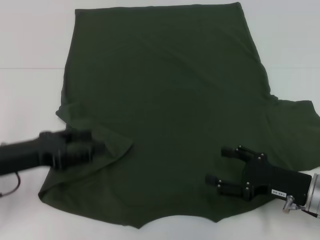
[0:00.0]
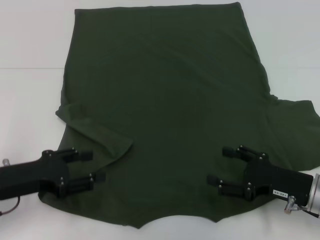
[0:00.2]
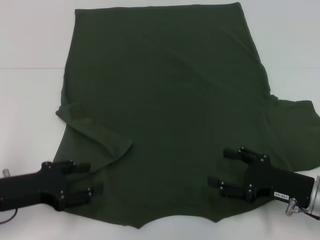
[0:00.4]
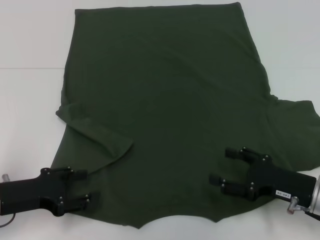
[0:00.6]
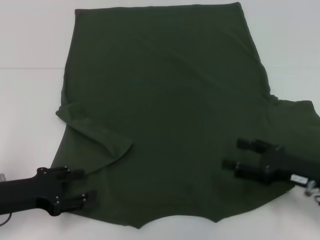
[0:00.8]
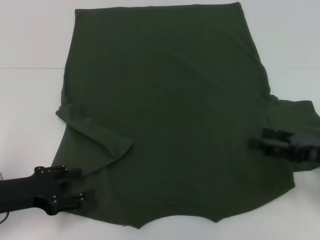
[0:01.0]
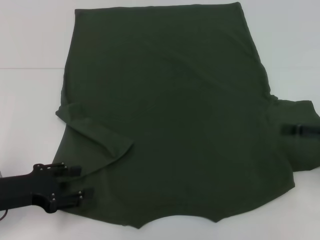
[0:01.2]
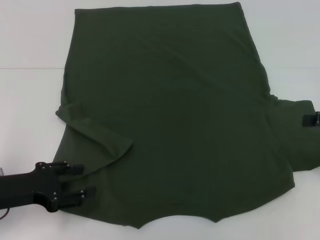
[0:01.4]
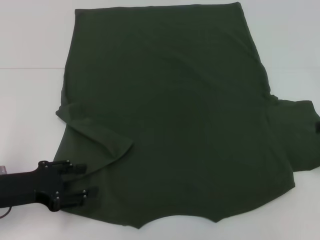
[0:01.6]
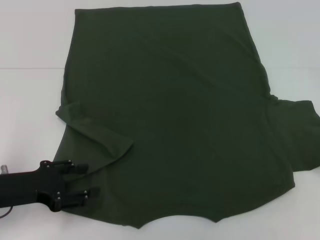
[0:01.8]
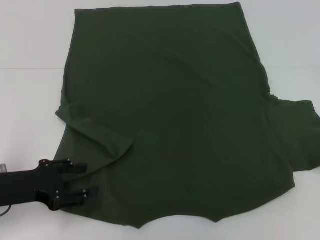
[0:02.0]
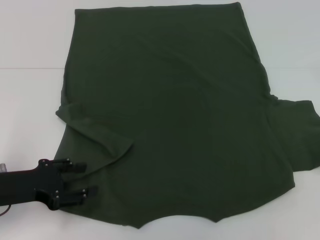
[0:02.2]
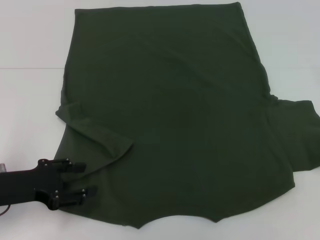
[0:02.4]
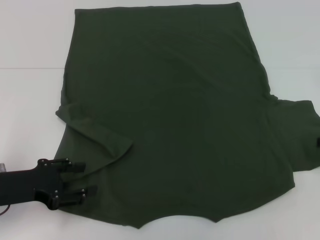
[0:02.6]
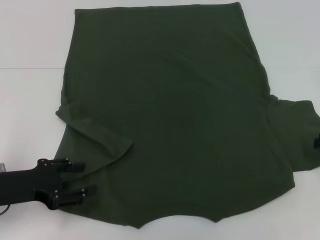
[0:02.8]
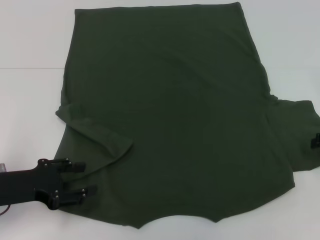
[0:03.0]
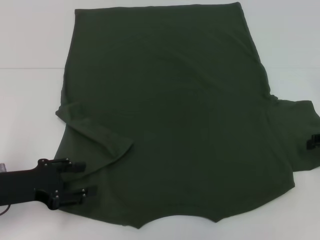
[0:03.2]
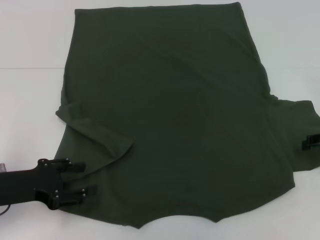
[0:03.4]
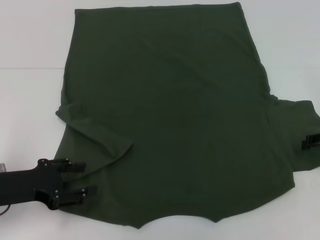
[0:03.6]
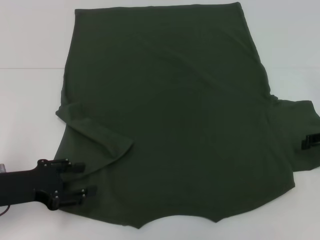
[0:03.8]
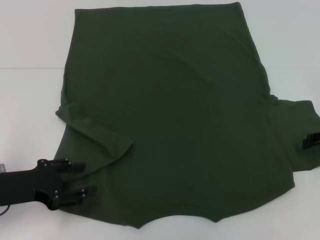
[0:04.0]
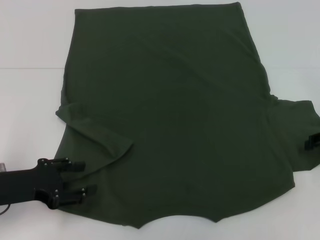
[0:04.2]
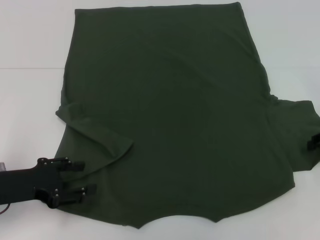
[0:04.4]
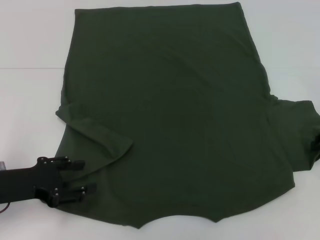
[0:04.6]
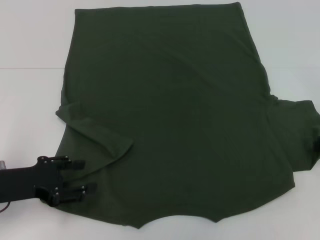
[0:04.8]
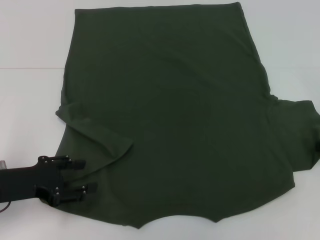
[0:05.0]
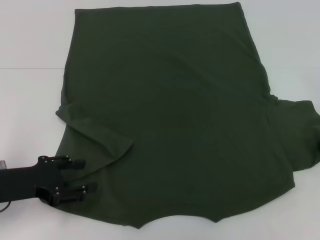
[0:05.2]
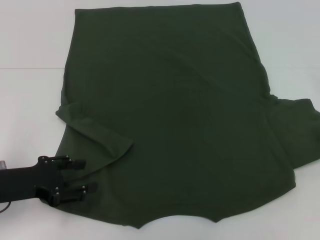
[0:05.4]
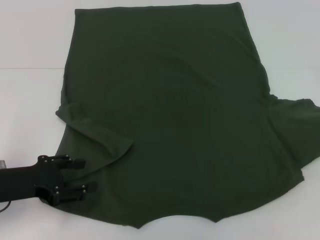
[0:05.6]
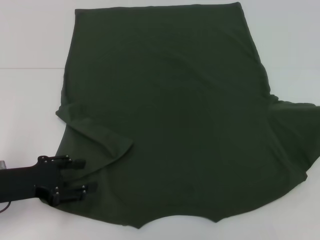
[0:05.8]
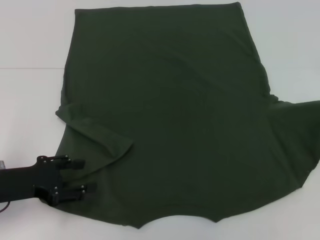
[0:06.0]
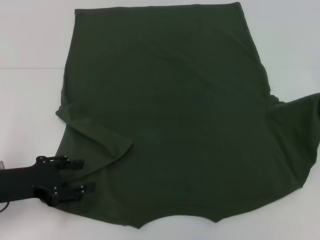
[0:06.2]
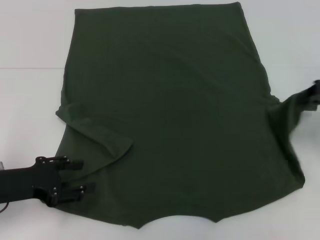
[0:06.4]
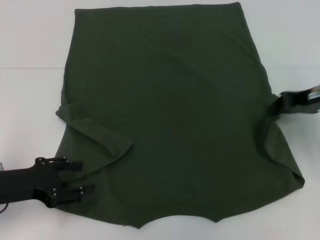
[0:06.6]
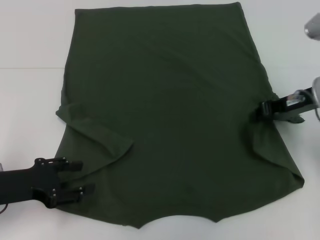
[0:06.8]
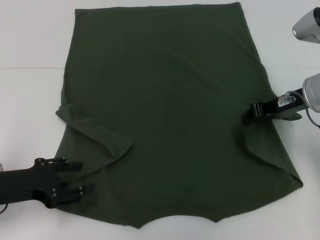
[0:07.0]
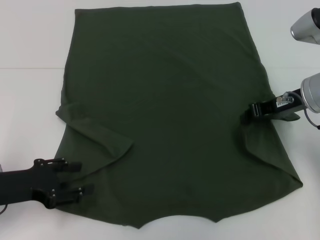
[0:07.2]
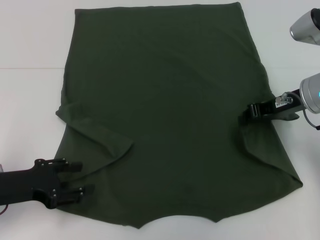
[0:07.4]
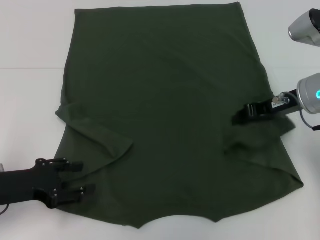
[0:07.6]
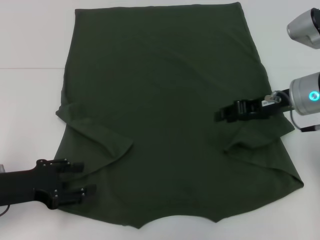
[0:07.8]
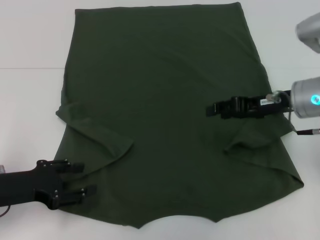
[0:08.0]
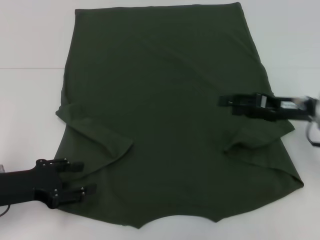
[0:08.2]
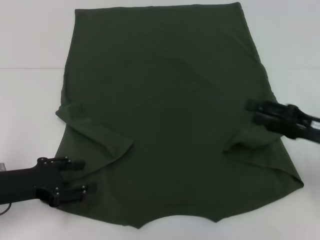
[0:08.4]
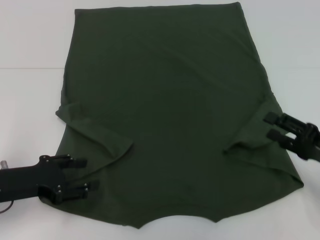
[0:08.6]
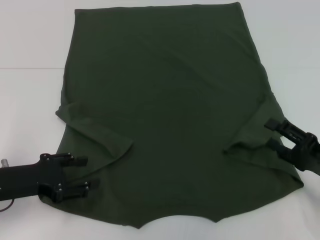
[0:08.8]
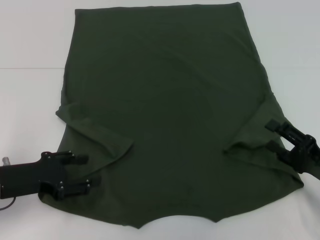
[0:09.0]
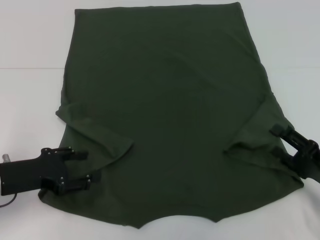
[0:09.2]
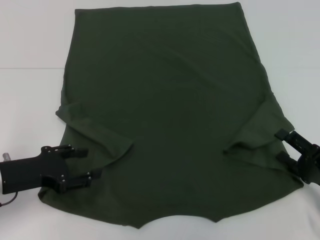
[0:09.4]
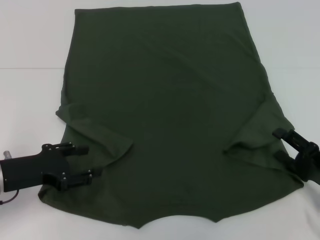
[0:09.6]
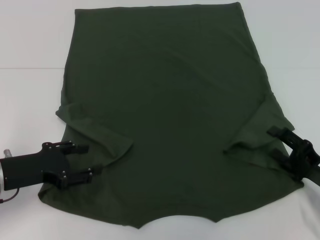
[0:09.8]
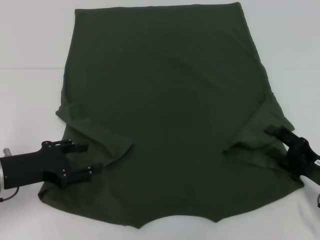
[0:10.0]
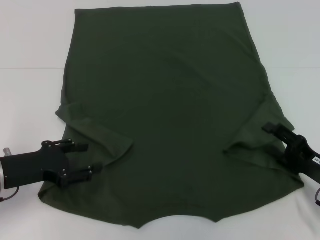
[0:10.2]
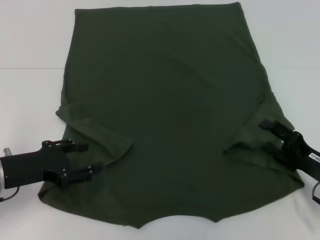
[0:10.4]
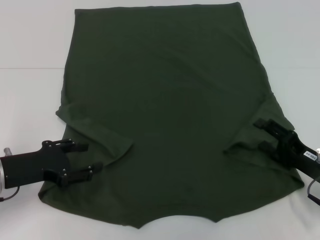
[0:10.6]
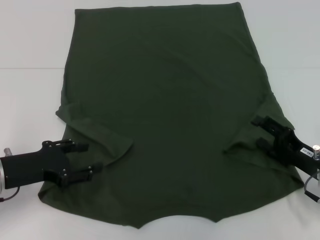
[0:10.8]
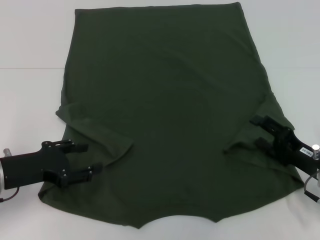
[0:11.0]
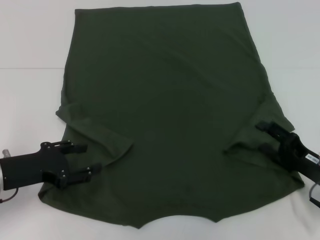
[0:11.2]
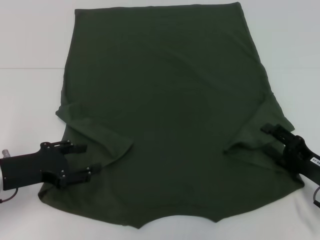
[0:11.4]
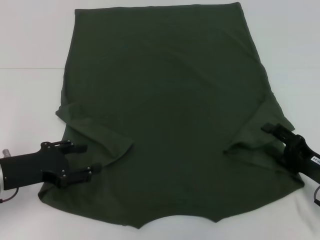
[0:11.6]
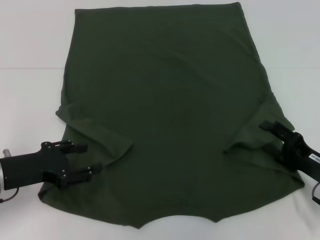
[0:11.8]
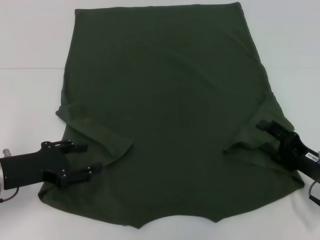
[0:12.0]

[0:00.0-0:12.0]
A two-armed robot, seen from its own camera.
0:00.0 to 0:01.6: The right gripper travels upward and to the right by approximately 20 cm.
0:04.4 to 0:06.0: The right gripper shifts by approximately 5 cm, and closes its fingers.
0:06.0 to 0:07.6: The right gripper shifts approximately 15 cm to the left.
0:07.6 to 0:09.0: The right gripper goes some 20 cm backward, downward and to the right, and opens.
0:09.0 to 0:12.0: The grippers make only small movements.

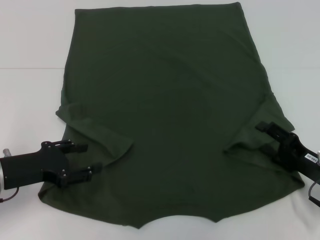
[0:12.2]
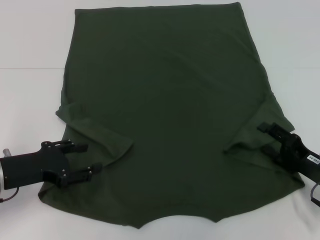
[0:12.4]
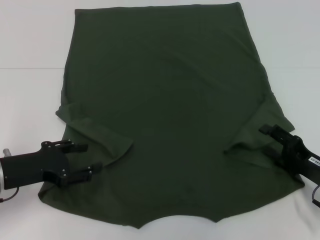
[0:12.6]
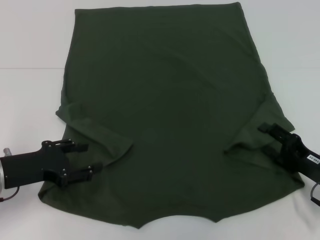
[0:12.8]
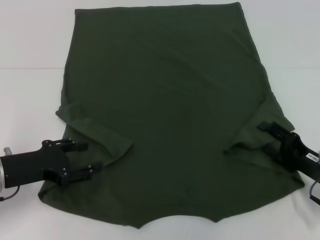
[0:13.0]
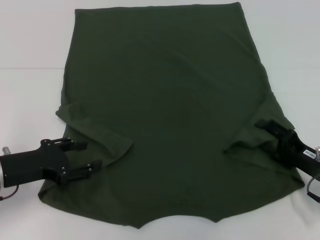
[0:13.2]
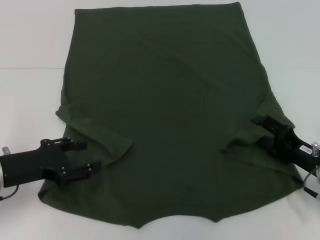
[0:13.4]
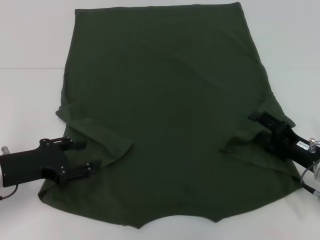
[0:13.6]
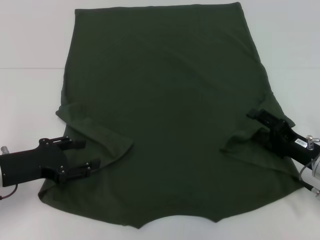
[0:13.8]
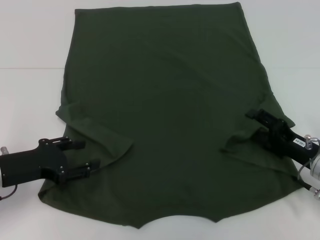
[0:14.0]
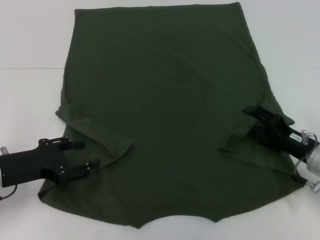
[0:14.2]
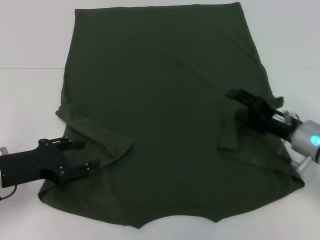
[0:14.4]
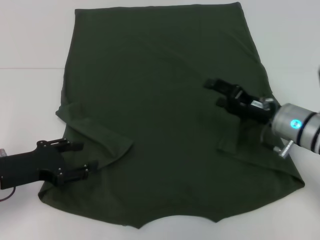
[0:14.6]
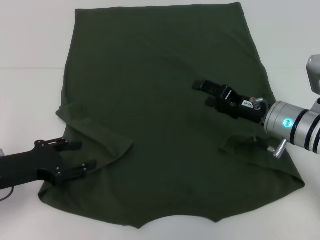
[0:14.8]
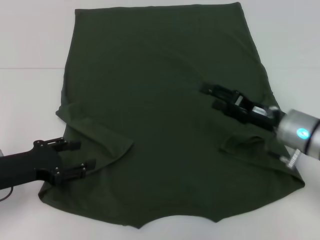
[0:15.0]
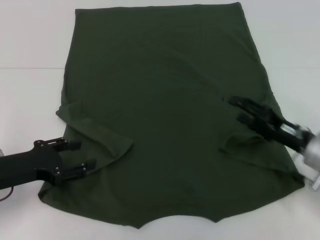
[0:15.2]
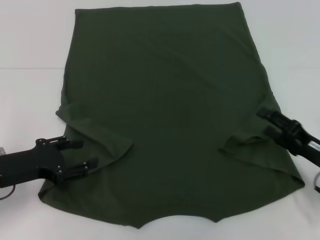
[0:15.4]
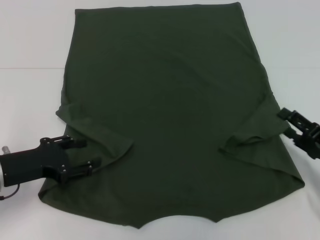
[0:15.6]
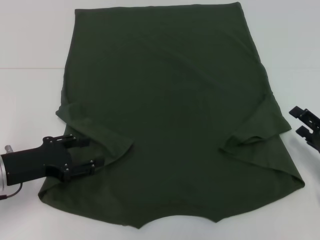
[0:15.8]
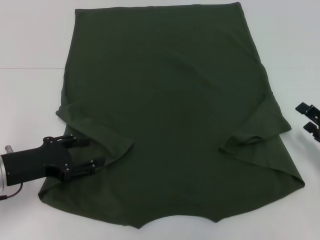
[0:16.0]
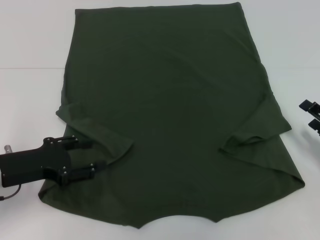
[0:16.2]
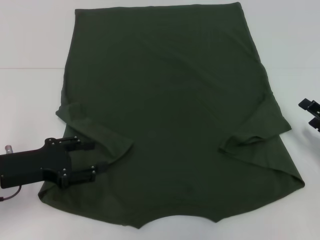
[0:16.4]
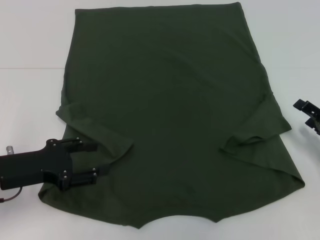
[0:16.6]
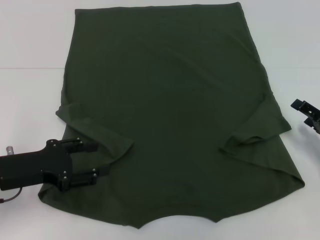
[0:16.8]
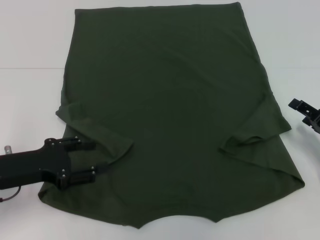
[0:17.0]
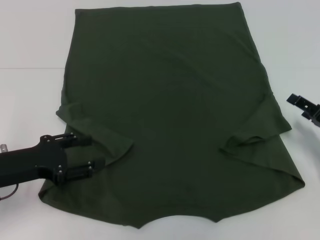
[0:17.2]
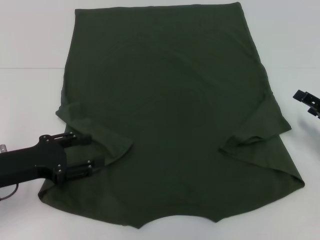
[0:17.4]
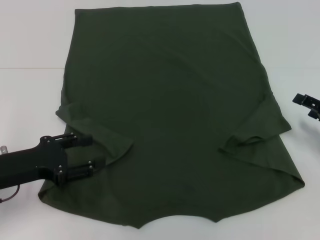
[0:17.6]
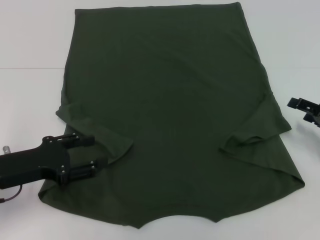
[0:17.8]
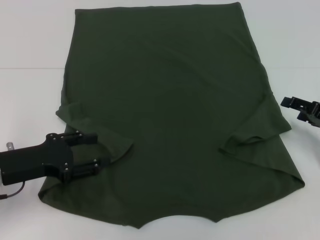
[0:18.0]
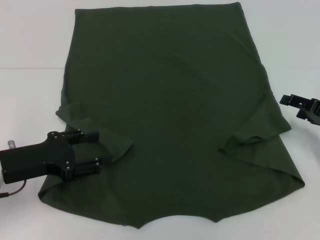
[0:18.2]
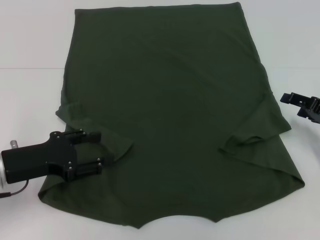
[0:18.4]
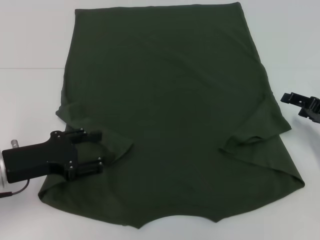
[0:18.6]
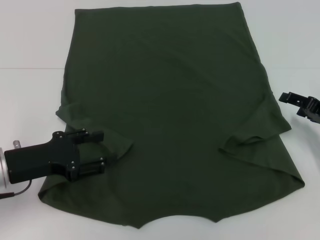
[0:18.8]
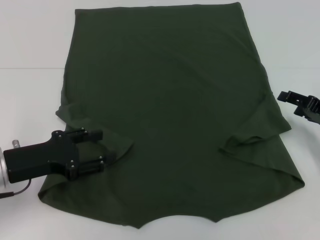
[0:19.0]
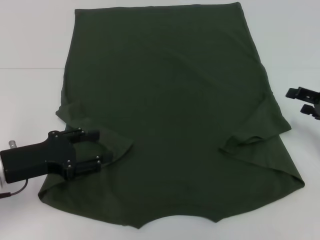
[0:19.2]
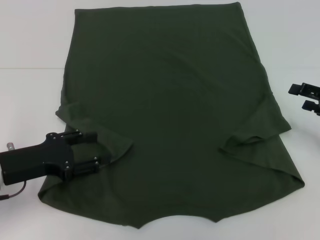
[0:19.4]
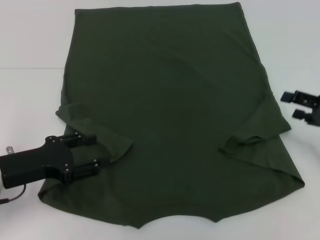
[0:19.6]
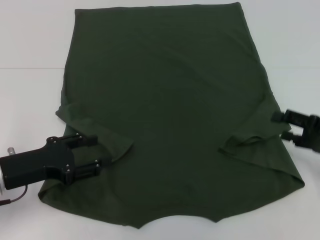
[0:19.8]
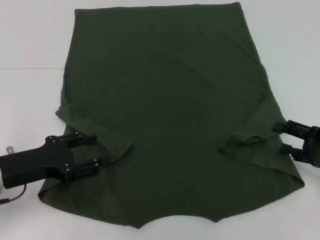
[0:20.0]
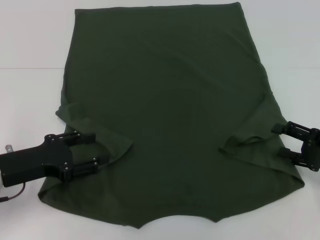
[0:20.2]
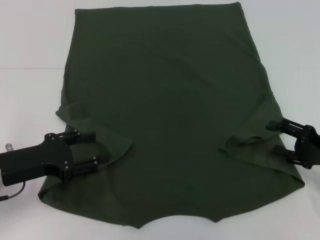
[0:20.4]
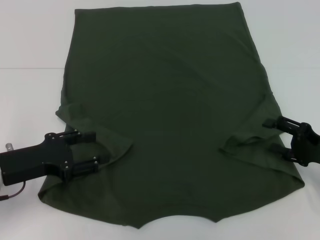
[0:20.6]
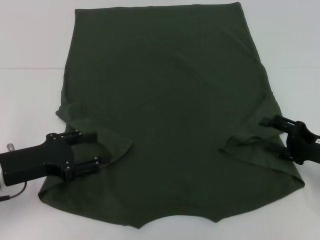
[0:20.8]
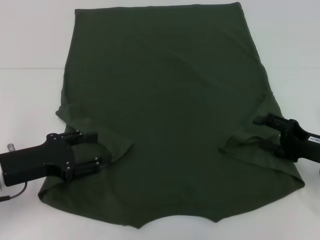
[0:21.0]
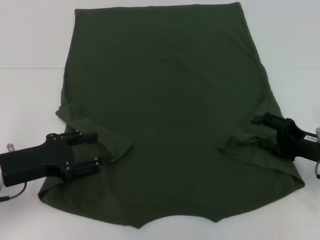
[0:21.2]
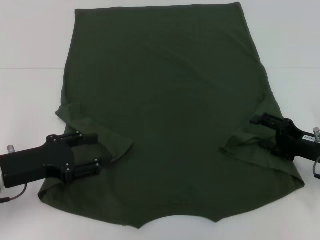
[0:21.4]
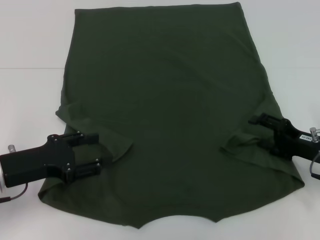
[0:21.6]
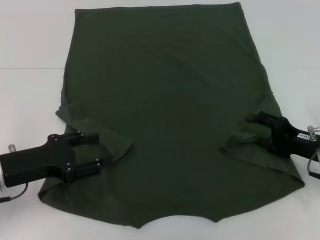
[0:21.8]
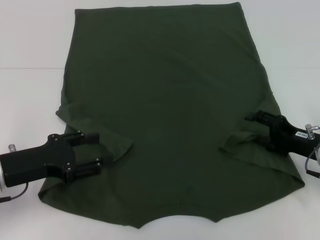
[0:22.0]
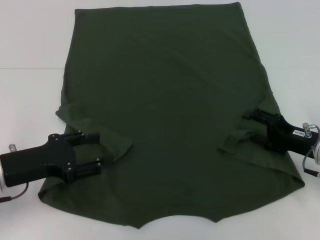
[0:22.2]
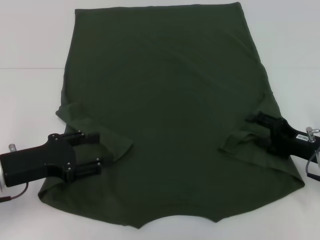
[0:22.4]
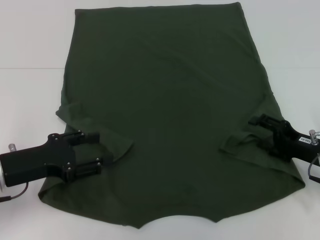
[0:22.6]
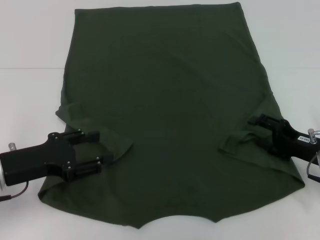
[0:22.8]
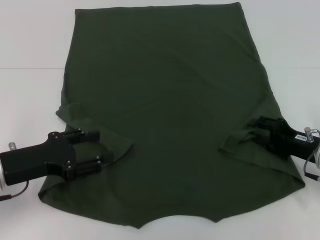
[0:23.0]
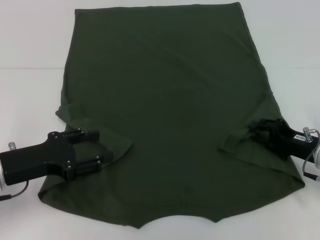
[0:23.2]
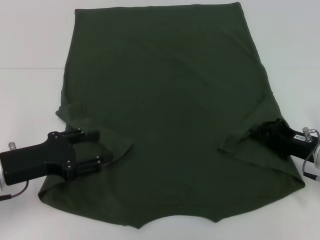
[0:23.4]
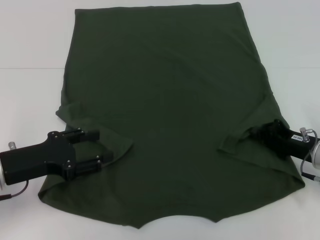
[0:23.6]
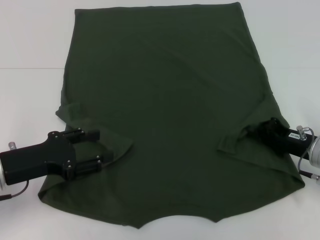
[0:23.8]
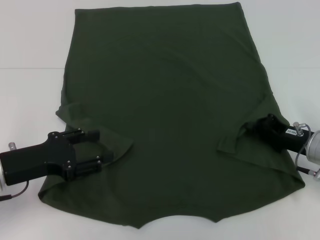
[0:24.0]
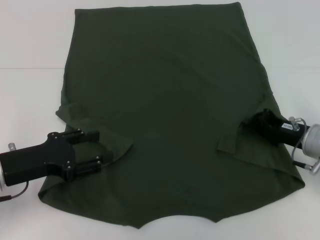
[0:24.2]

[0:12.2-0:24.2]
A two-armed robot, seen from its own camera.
0:12.2 to 0:13.8: The grippers stay close to where they were, moving slightly.
0:15.2 to 0:16.6: The right gripper travels to the right by some 10 cm.
0:16.6 to 0:18.2: The right gripper shifts by approximately 5 cm.
0:18.2 to 0:19.8: The grippers move only a little.
0:19.8 to 0:21.2: The right gripper moves some 5 cm.
0:21.2 to 0:22.6: The grippers stay close to where they were, moving slightly.
0:22.6 to 0:24.2: The right gripper closes its fingers.
